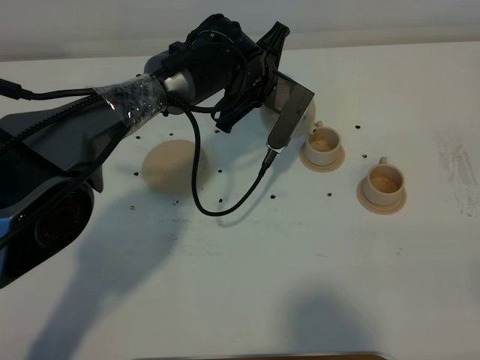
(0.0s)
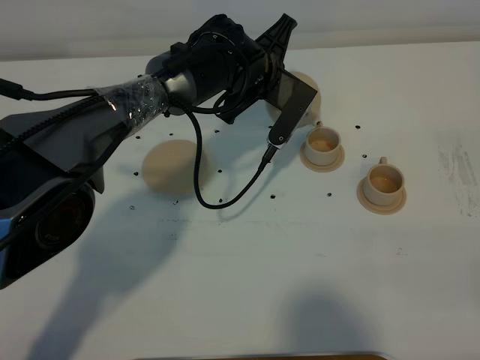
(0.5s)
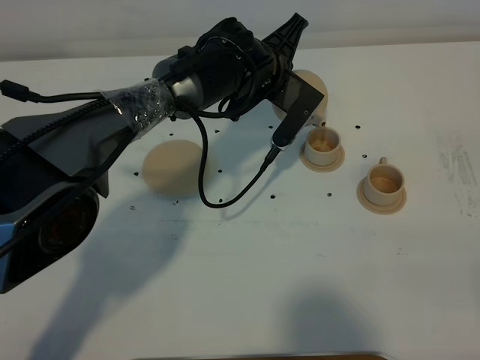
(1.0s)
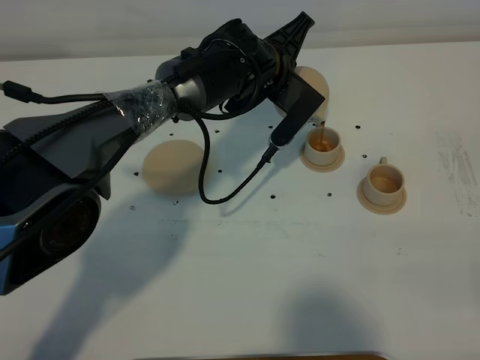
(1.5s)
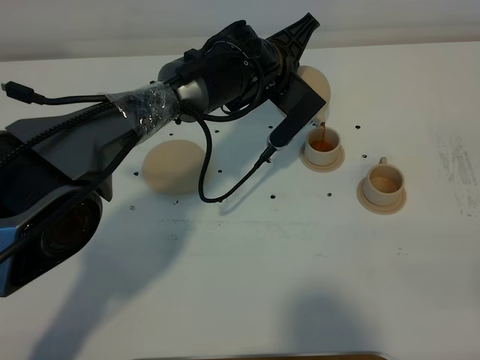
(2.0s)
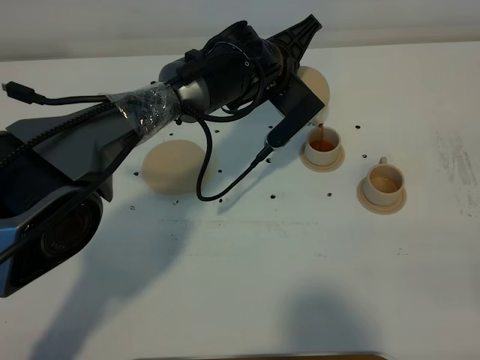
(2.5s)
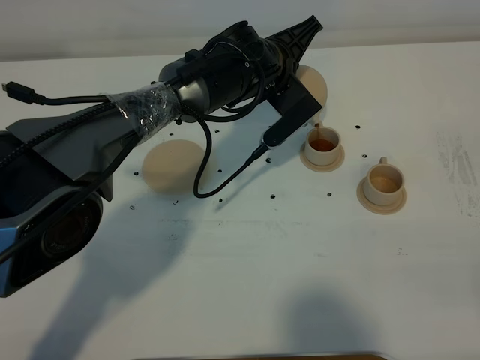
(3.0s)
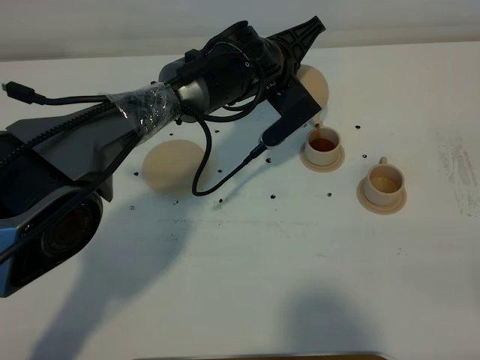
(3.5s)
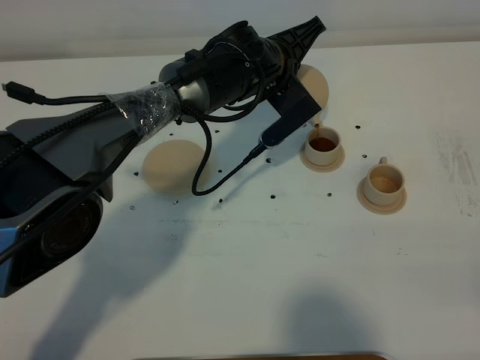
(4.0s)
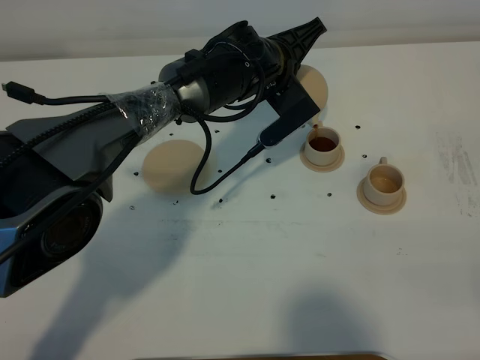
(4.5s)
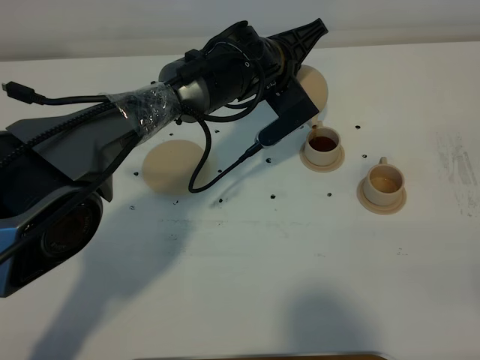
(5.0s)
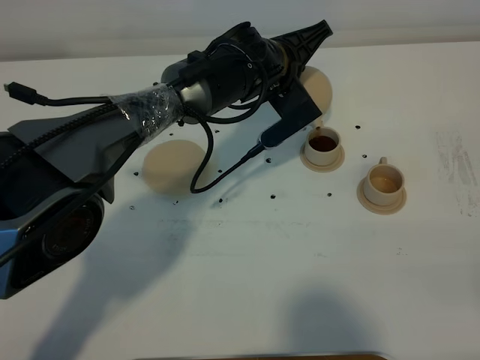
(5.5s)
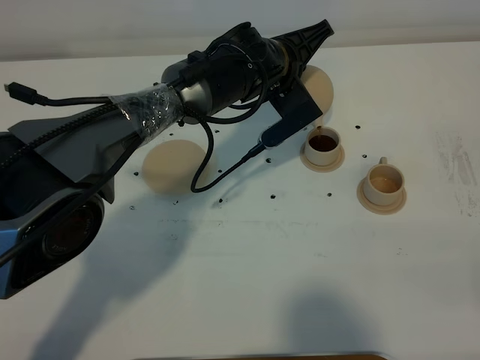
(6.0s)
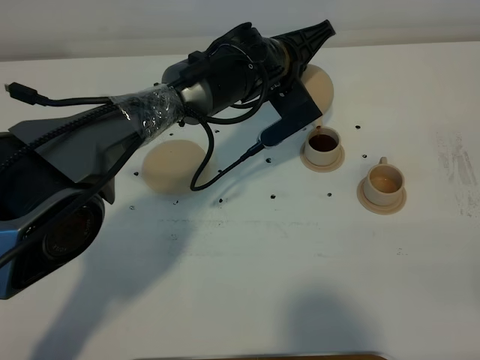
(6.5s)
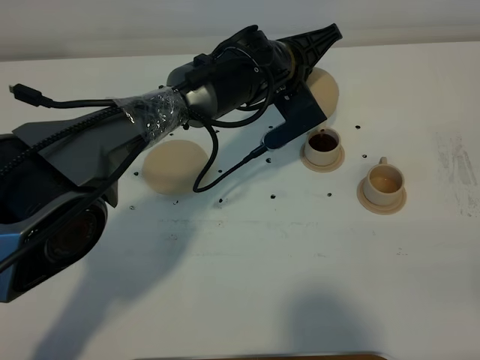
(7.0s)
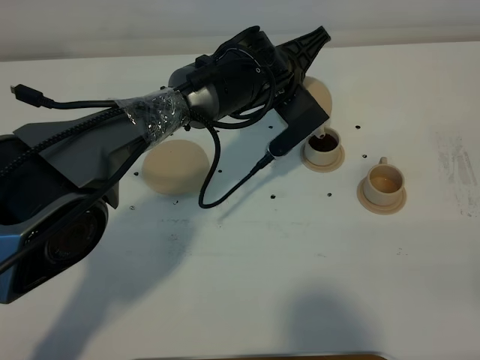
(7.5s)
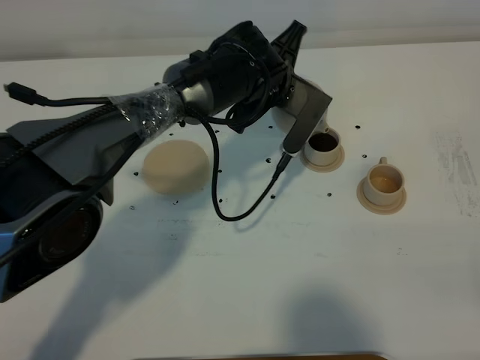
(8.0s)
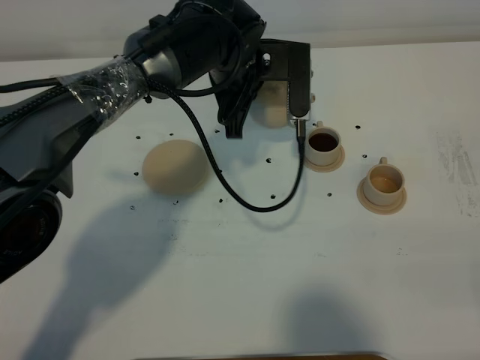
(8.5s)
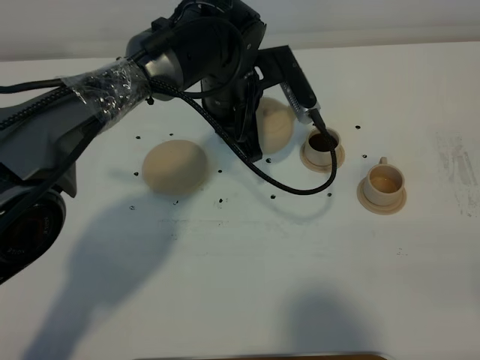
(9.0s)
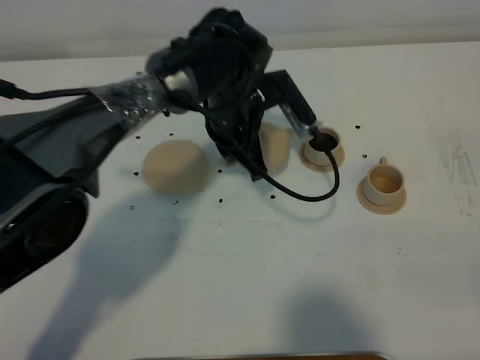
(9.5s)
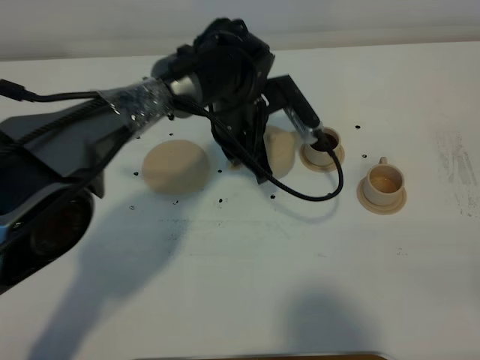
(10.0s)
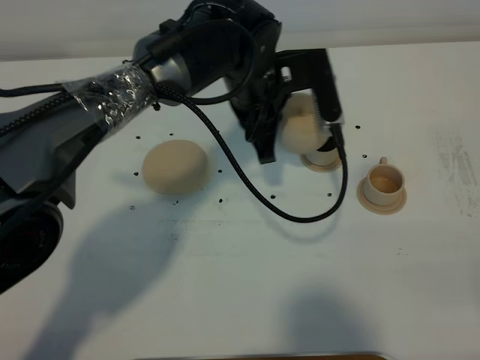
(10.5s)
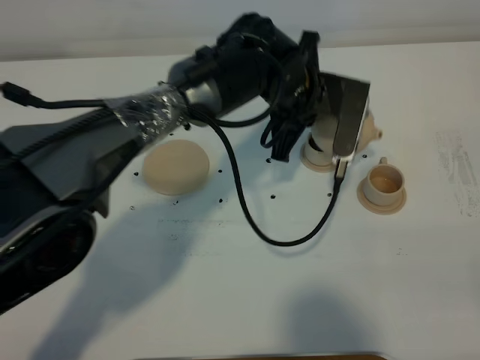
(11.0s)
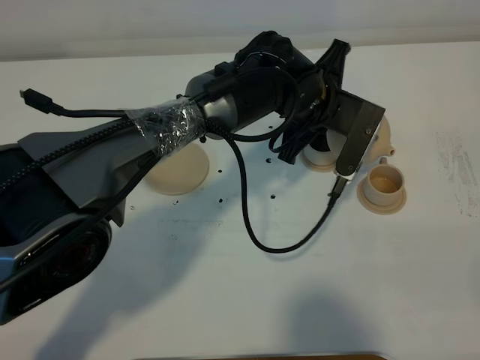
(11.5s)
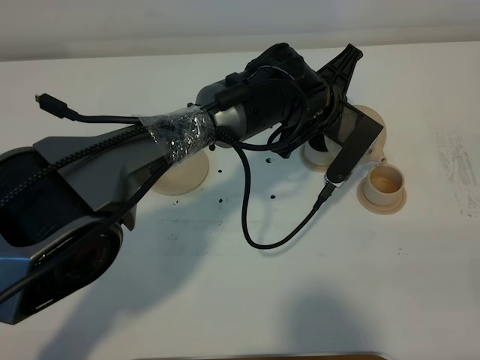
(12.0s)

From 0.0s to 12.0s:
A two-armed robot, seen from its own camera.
Task of the whole recording: grasp the brown teapot and pour the tea into the two brown teacups one by one, put the brown teapot back in its original place.
From 0.0s to 2.0s: There are only small adjustments of the grippers.
From 2.0s to 4.0s: There are only small adjustments of the grippers.
From 4.0s to 6.0s: The two grippers keep their place.
From 10.0s to 12.0s: The left gripper travels to the right by approximately 10 cm.

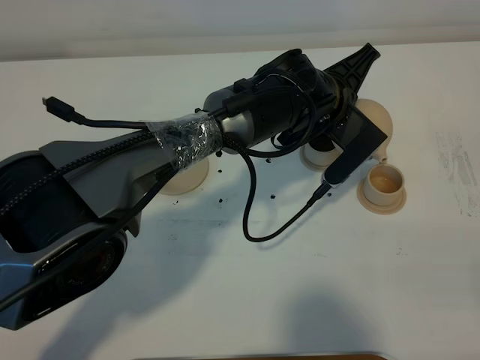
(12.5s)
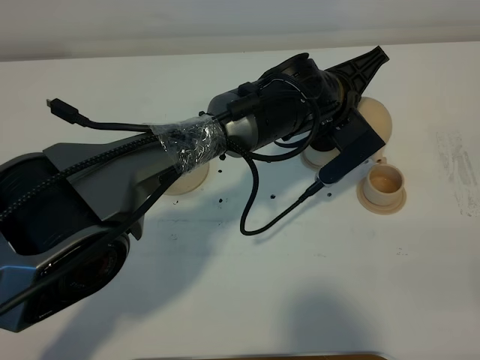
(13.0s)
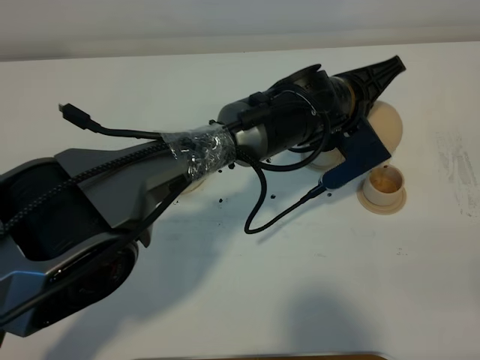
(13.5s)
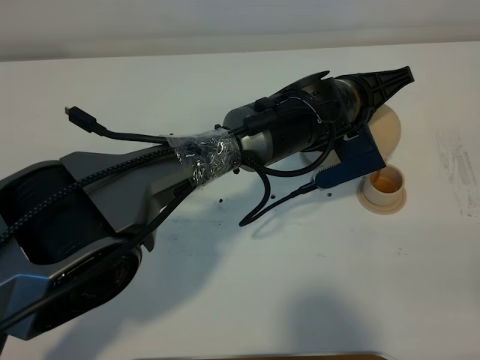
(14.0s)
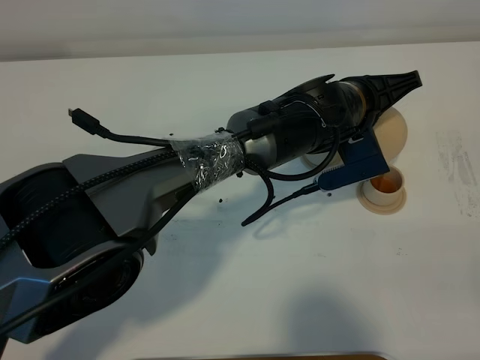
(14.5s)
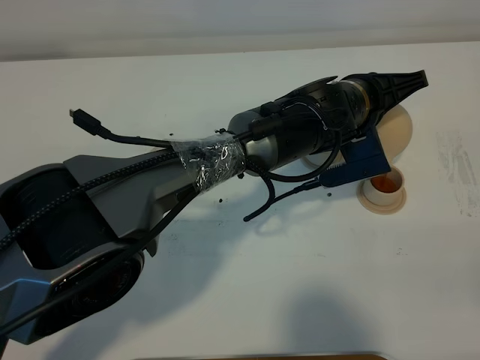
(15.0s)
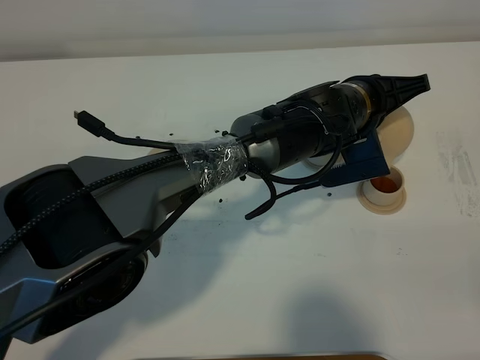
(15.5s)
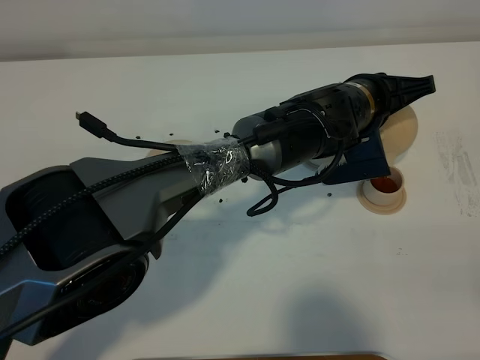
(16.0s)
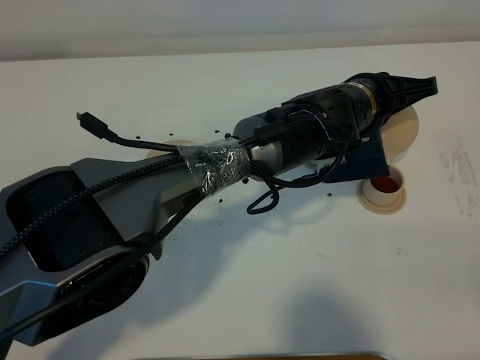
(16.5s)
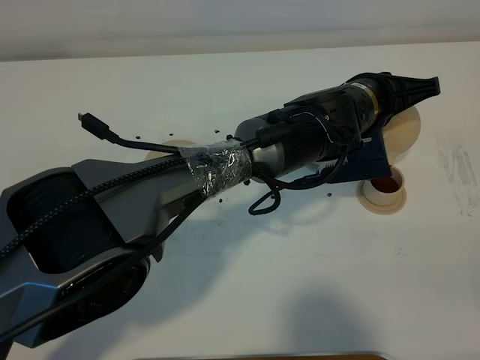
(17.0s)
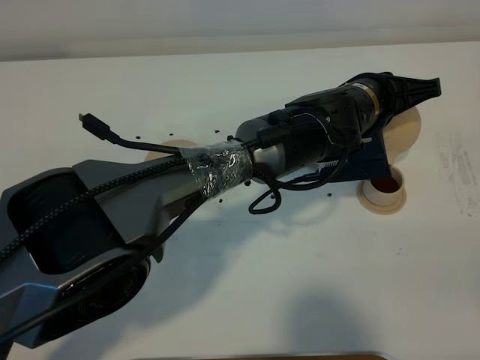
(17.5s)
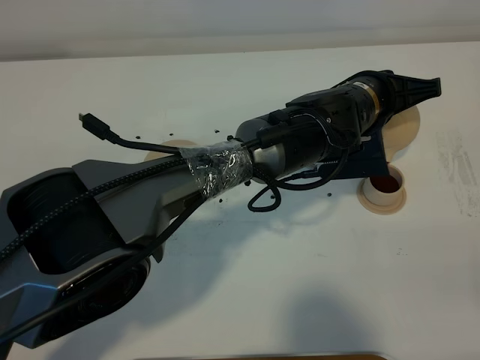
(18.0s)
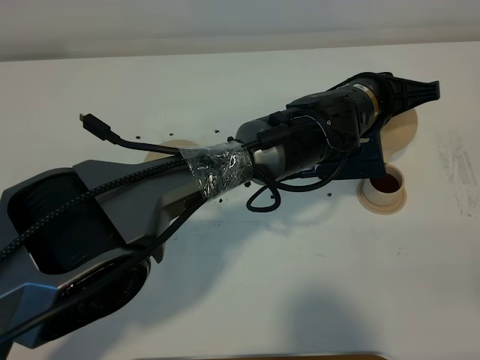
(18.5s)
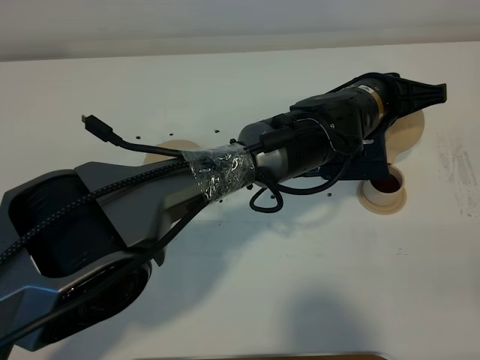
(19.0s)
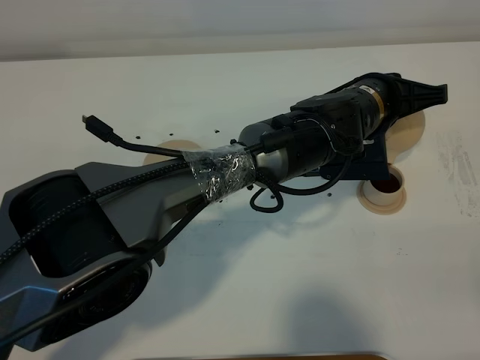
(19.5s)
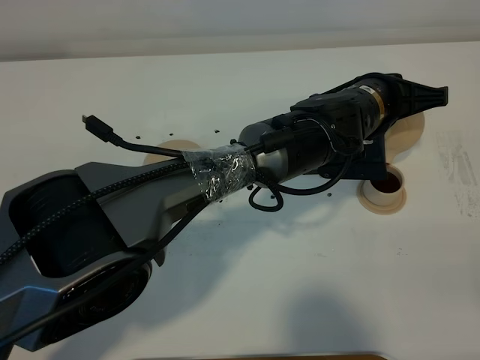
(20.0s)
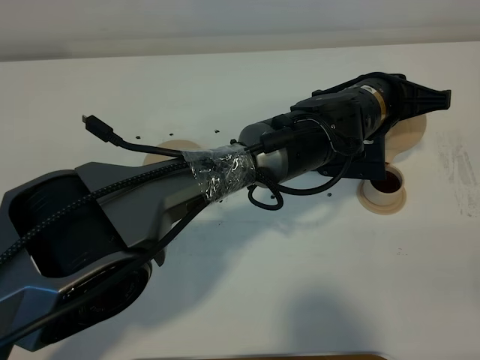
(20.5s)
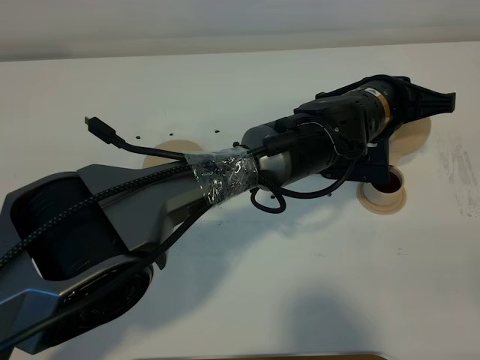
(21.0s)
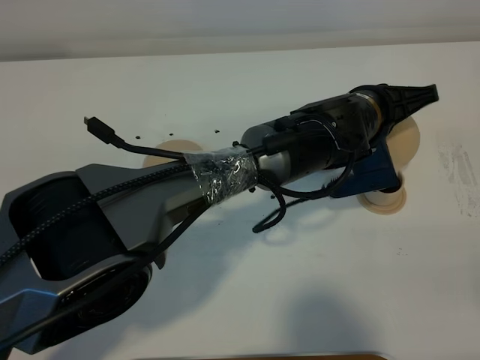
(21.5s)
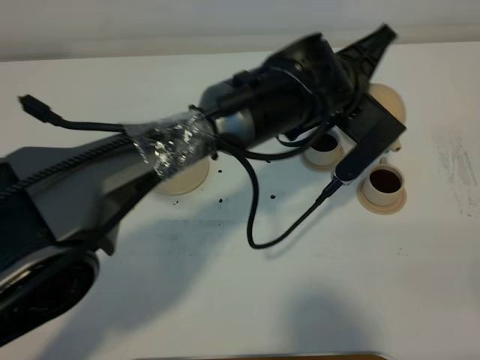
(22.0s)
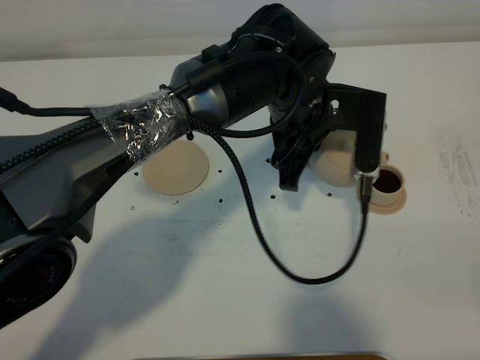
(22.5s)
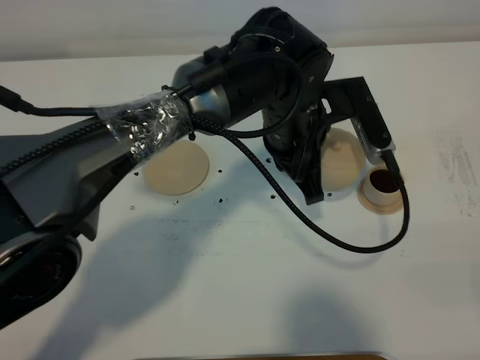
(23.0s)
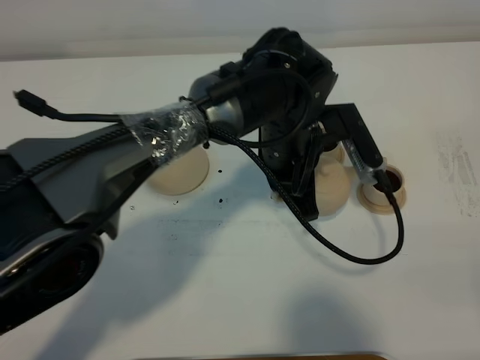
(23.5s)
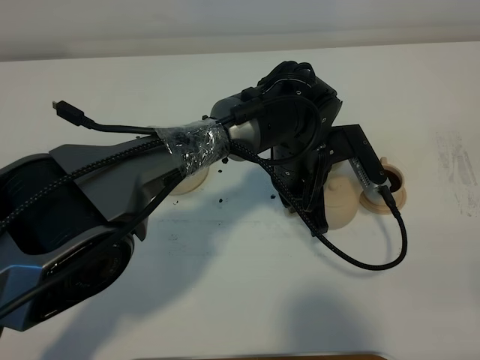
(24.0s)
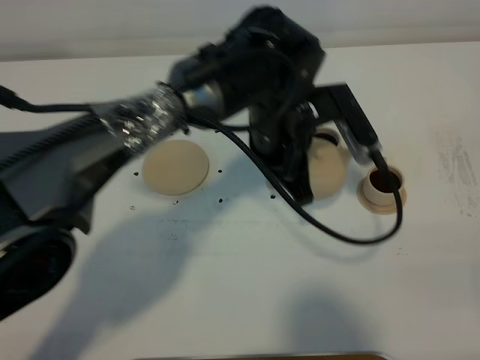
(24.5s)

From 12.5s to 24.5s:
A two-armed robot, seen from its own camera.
Task of the whole recording: grasp the brown teapot and pour the tea into the two brown teacups one by one, put the brown teapot back in its original place.
Step, from 12.5s to 22.0s: Pour tea into the teacup with the left gripper.
From 14.5s to 16.5s: The grippers make only small movements.
From 16.5s to 18.5s: The two grippers keep their place.
From 18.5s to 20.5s: The grippers make only small movements.
From 20.5s to 22.5s: The left gripper goes roughly 10 cm to the left.
From 22.5s to 24.5s: The left gripper goes downward and returns, about 10 cm each way.

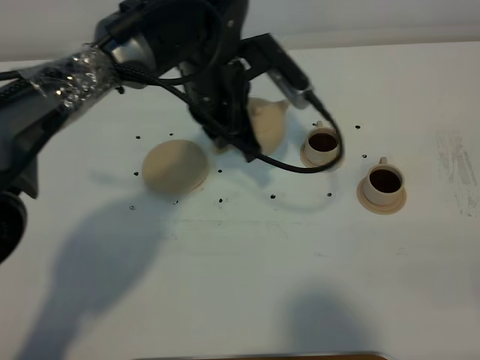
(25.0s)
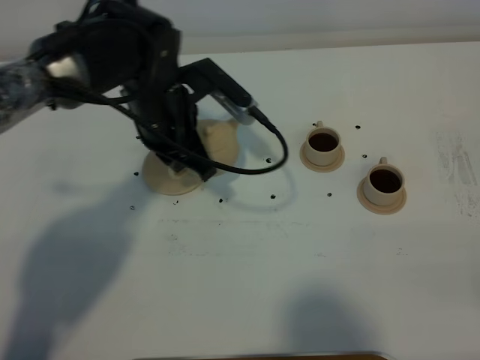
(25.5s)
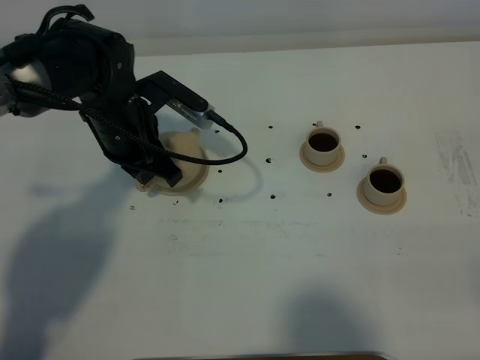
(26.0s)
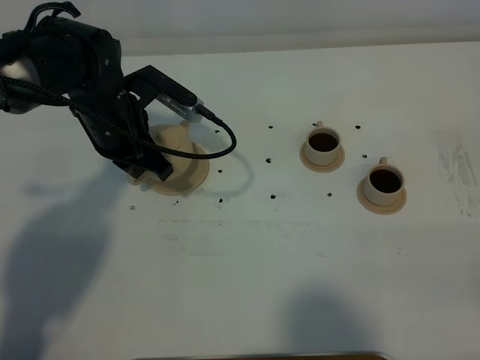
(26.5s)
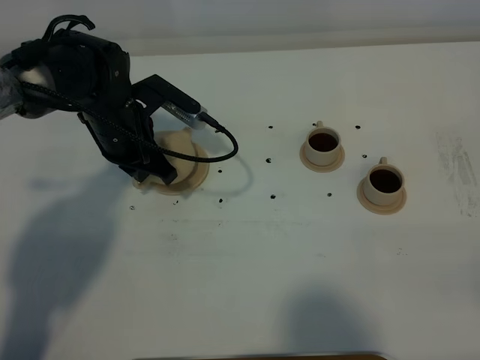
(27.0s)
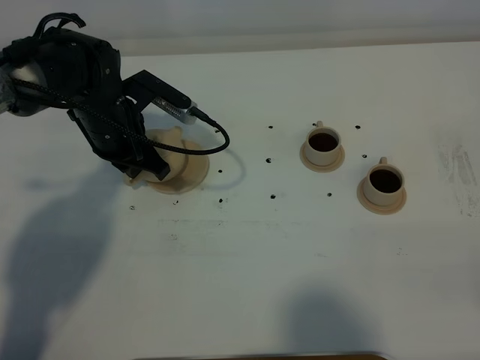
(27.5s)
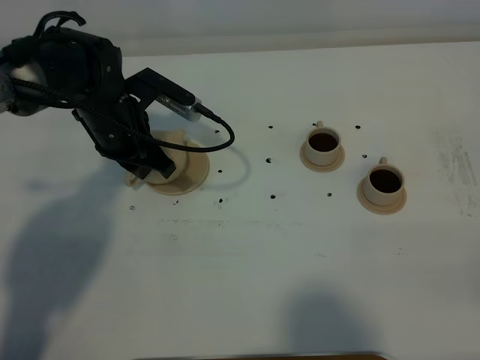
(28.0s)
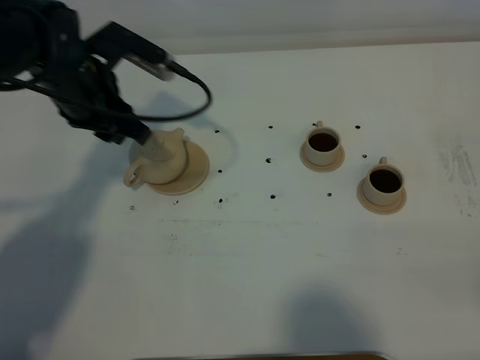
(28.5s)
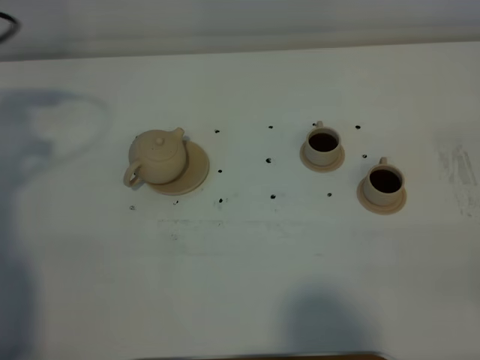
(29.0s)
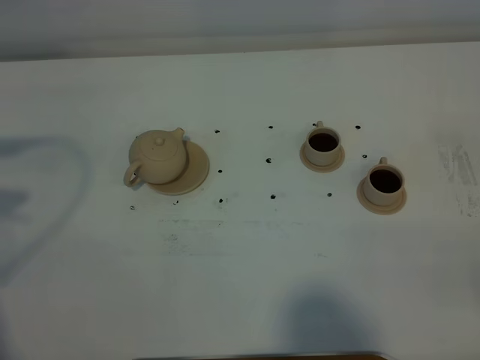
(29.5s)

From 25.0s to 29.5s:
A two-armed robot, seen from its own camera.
Task of the whole recording: grasp the brown teapot and pour the tea into the two brown teacups one by one, put the brown teapot back in its original place.
From 25.0s to 27.0s: The left gripper travels to the left and downward by about 15 cm.
From 27.0s to 29.5s: The left gripper travels to the left, backward and upward by about 35 cm, and opens up.
